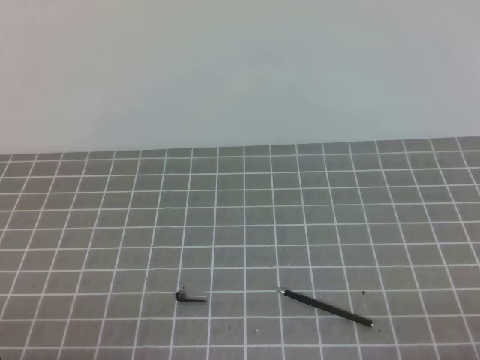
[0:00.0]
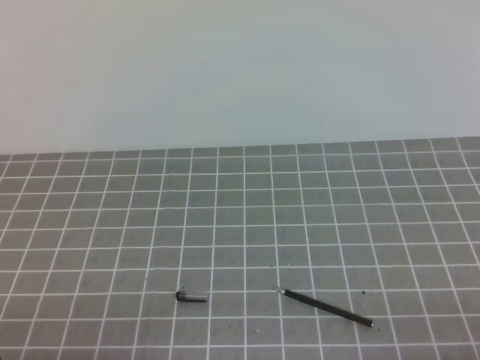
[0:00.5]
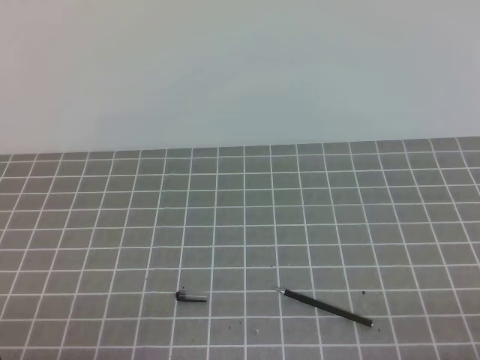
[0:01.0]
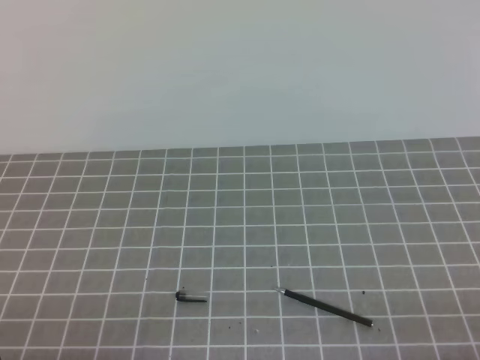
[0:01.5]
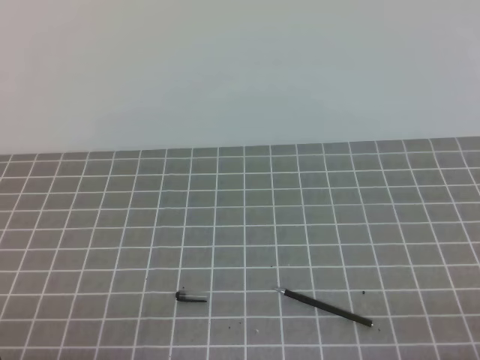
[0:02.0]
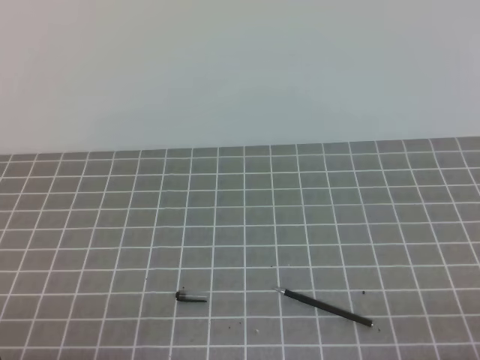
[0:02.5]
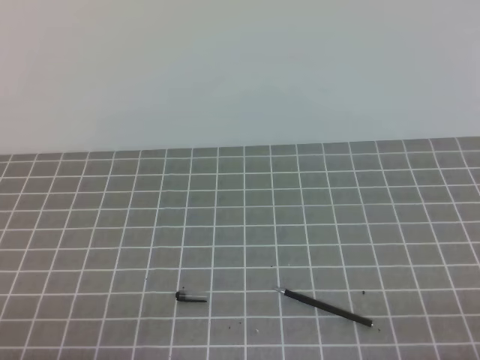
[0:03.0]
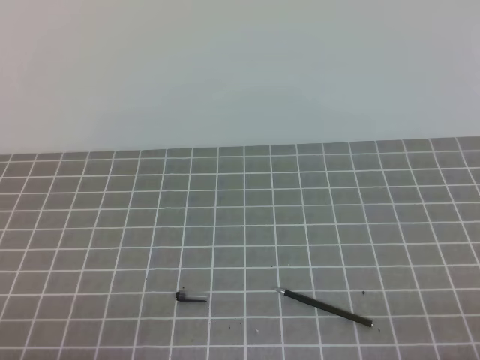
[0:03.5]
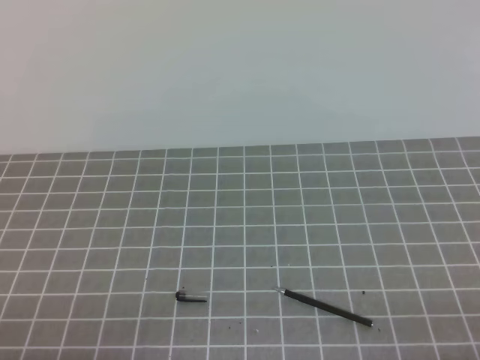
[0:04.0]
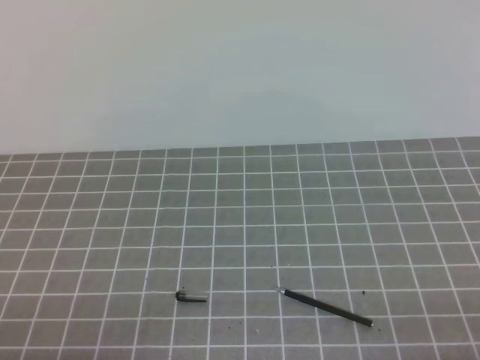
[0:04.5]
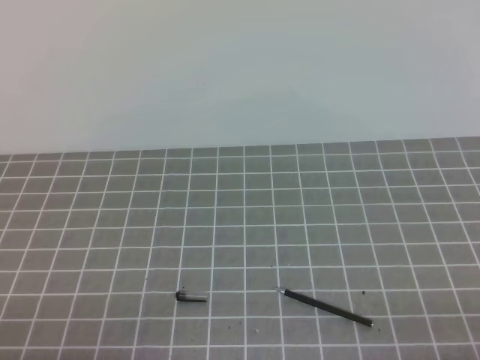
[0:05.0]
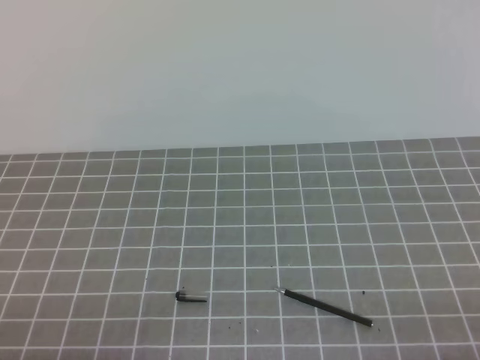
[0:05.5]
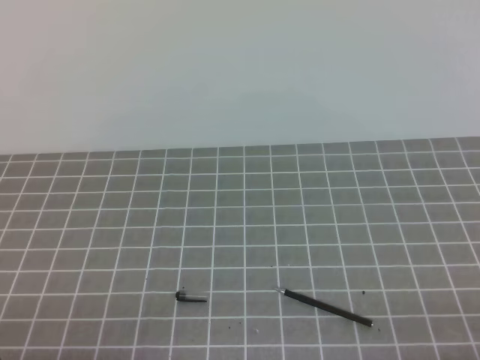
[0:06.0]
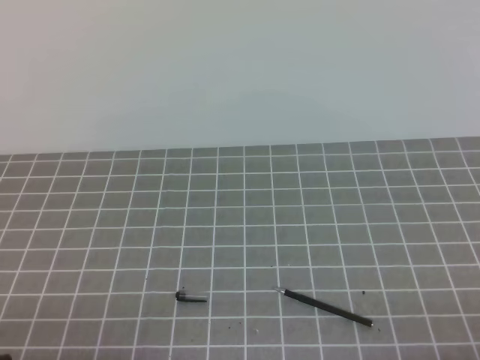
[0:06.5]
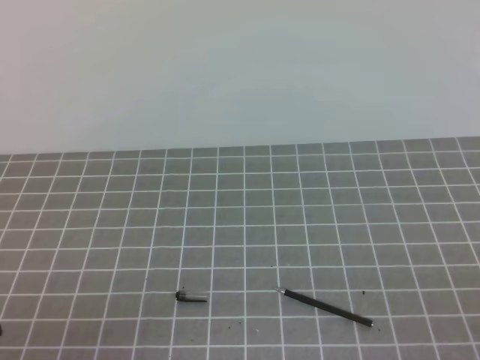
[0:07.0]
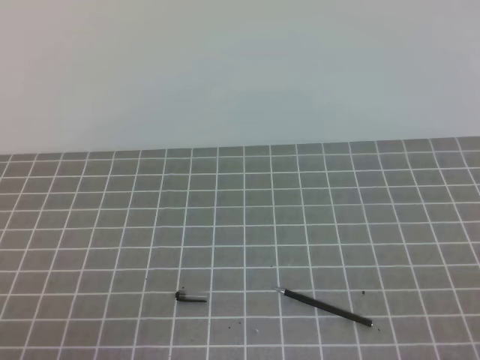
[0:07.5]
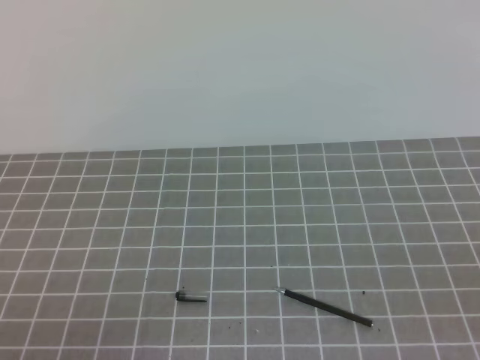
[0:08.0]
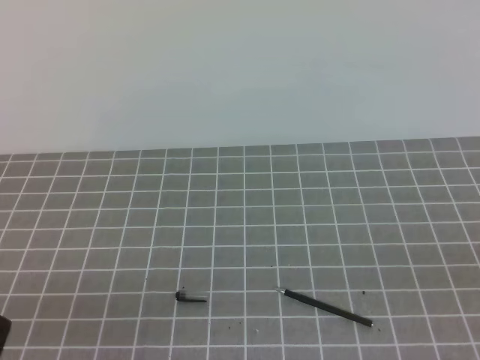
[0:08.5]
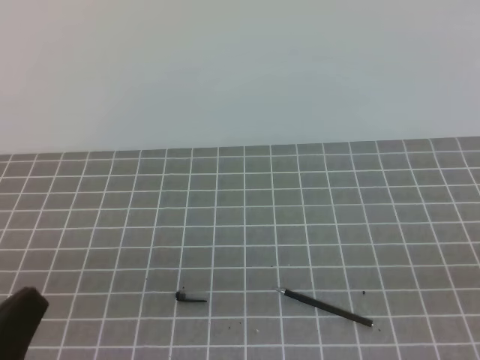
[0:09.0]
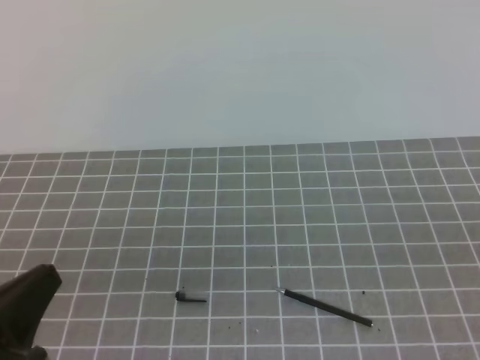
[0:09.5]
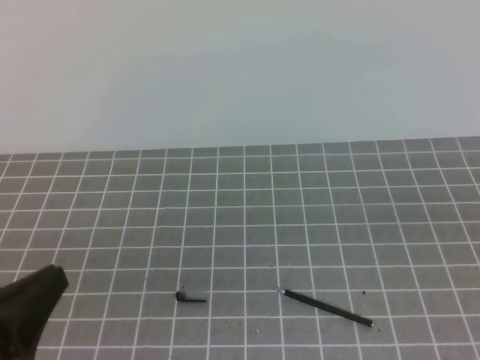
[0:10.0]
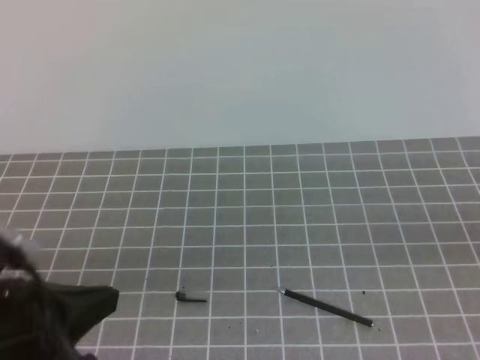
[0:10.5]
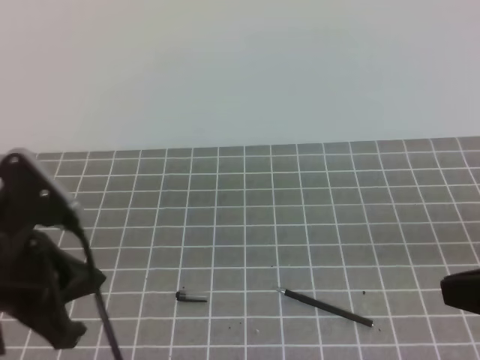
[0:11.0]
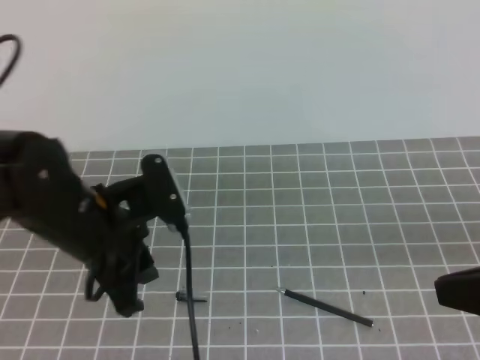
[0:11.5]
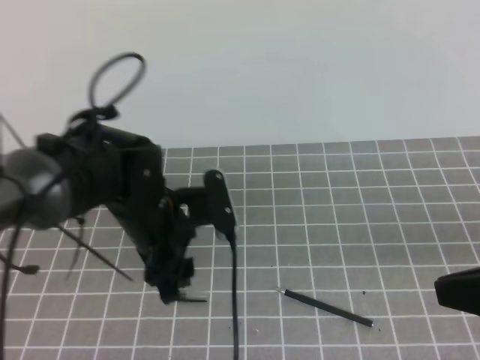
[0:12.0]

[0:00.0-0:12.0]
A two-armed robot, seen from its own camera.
Task of the whole recording: on the grey tablecloth, hold the pen cap in one hand and the pen in the other, then cover the pen cap.
0.0 to 6.0 s: Both grippers stay about where they are.
8.0 to 10.0 s: The left gripper moves upward, some 5 cm.
10.0 to 12.0 s: The left gripper is displaced forward and to the right by some 25 cm, and opens. Meanwhile the right gripper shifts by some 10 cm.

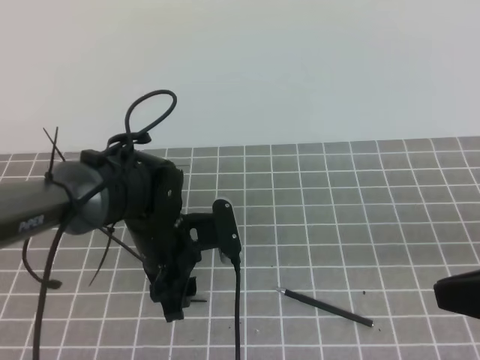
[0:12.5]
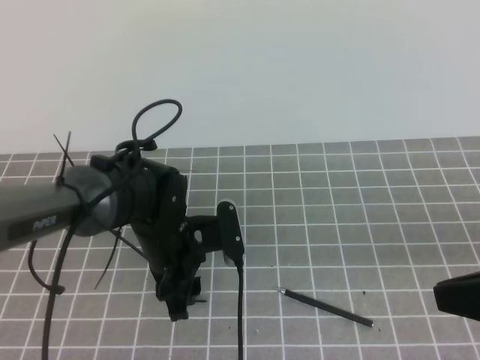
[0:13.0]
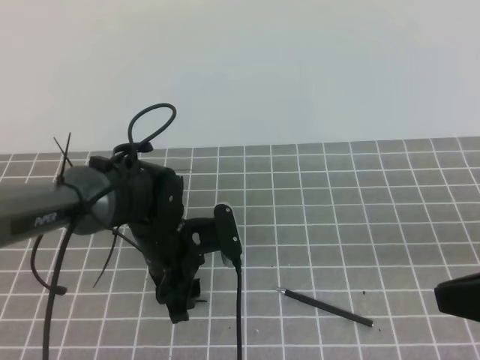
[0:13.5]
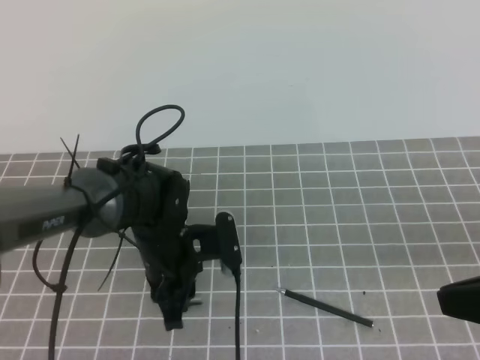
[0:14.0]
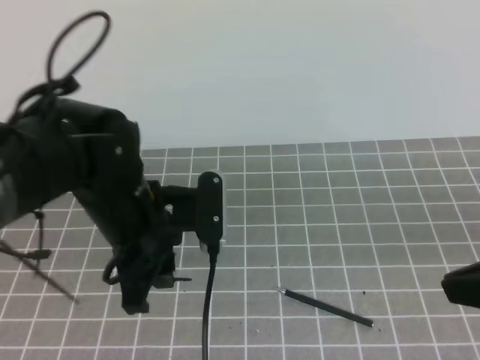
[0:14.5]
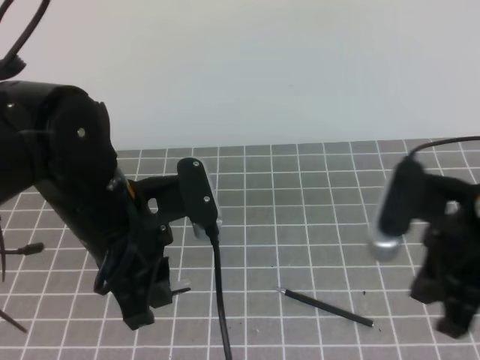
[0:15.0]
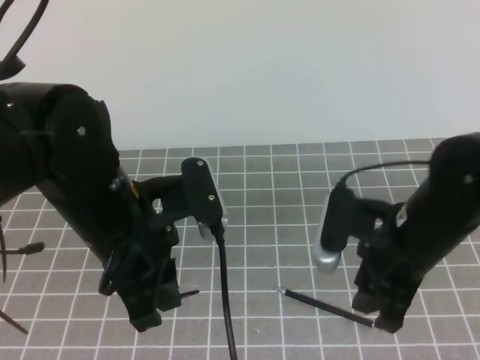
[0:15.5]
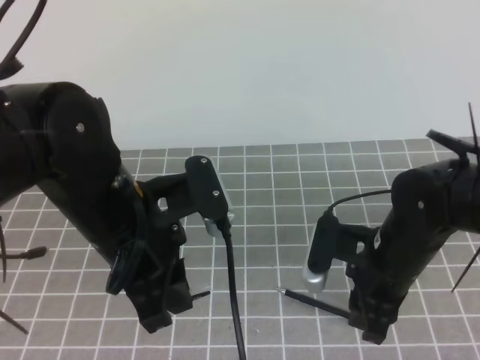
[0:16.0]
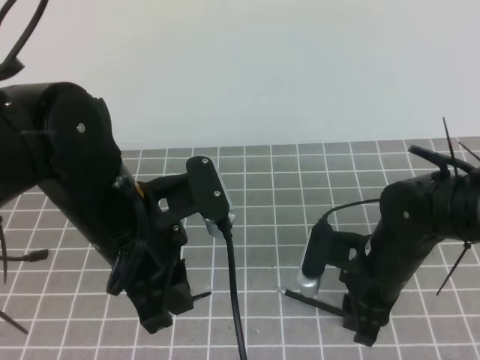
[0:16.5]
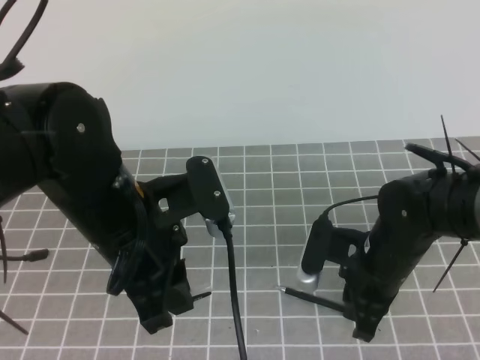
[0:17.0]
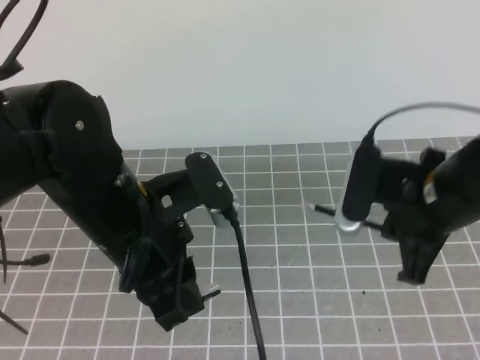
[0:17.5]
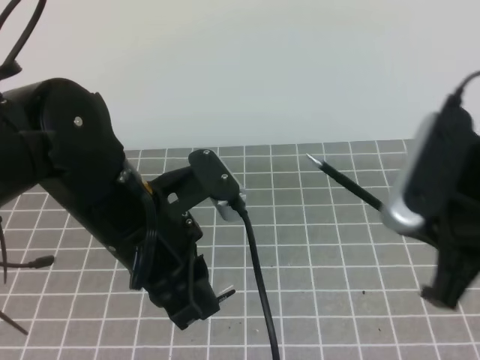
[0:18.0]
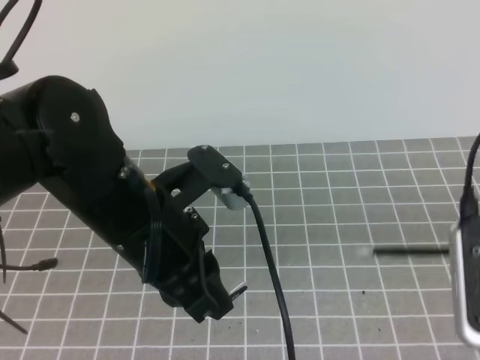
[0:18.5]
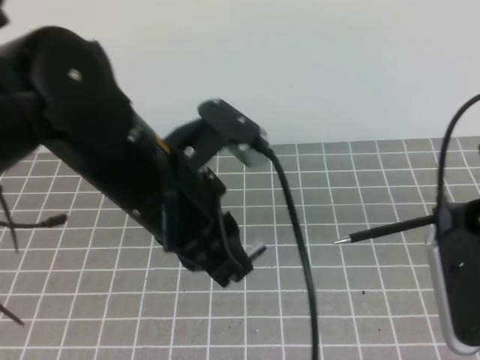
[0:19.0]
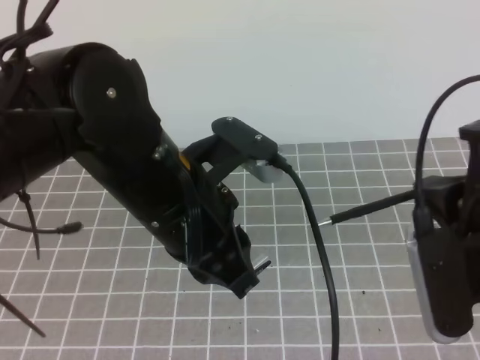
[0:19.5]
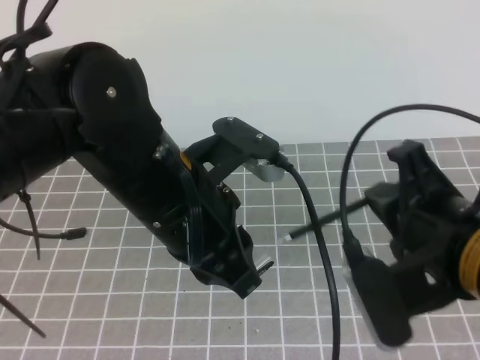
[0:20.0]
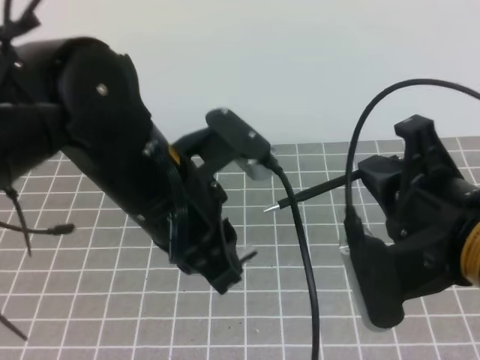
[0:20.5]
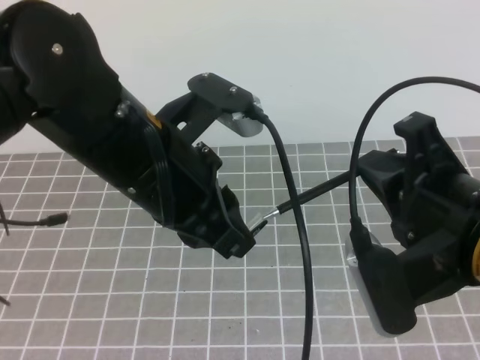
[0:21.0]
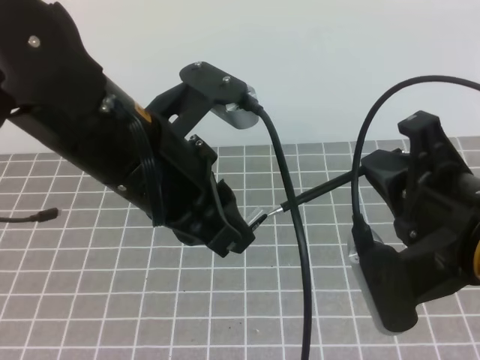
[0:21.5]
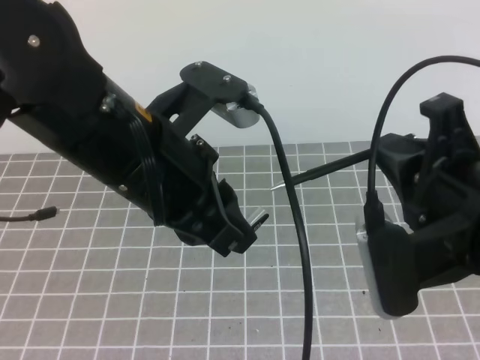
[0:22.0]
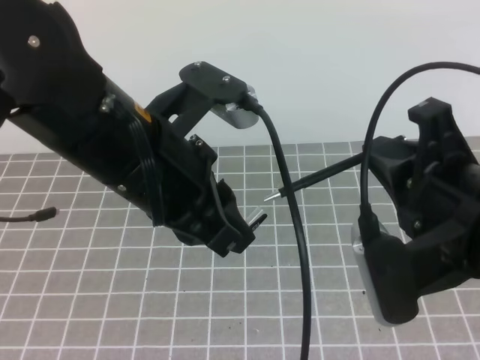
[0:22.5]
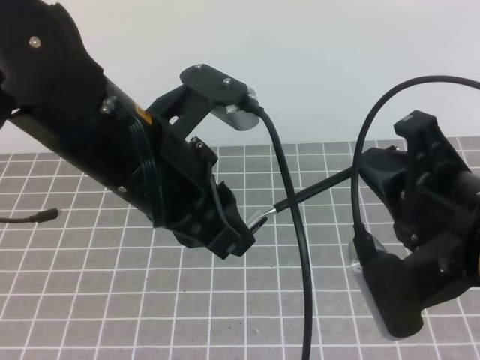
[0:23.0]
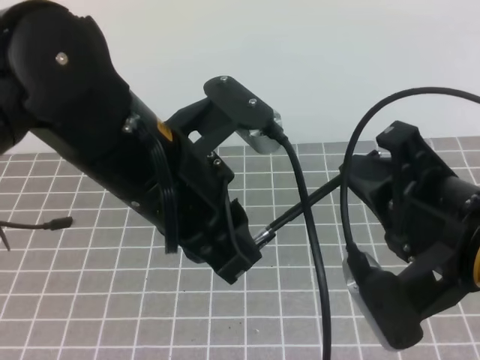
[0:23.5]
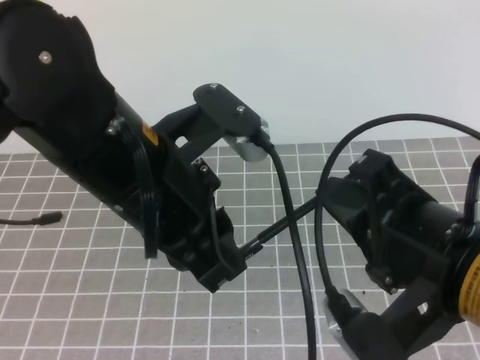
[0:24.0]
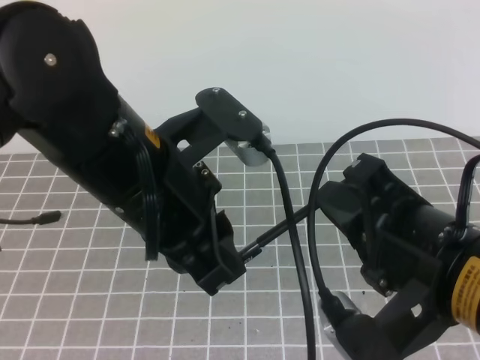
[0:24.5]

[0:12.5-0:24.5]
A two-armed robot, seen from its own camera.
Task of the whole recording: on the grey tablecloth, hold the pen cap in one hand and the pen in the other, then cover the pen cap.
12.5 to 14.5 s: The left gripper goes about 10 cm upward, and closes.
14.5 to 16.5 s: The right gripper moves downward, forward and to the left, approximately 25 cm, and opens up; the left gripper changes place by about 5 cm.
16.5 to 18.5 s: The right gripper heads upward, backward and to the right, covering roughly 25 cm, and closes.
18.5 to 20.5 s: The right gripper heads to the left, covering roughly 10 cm.

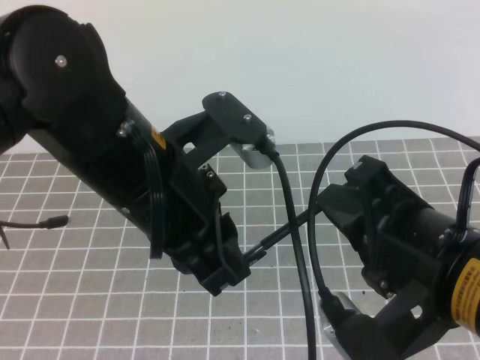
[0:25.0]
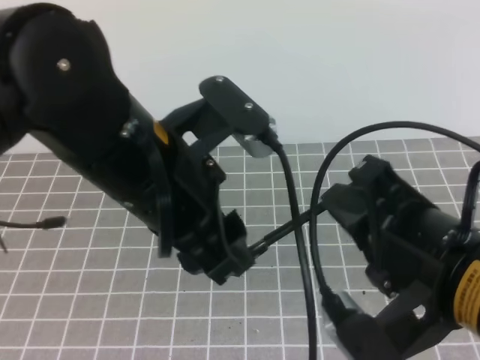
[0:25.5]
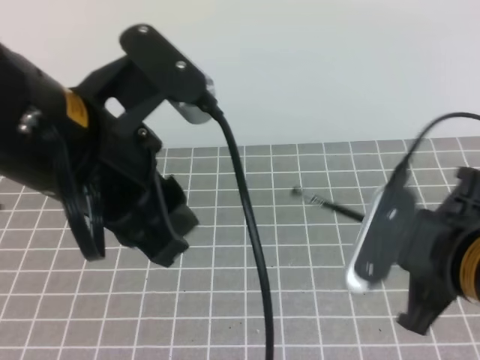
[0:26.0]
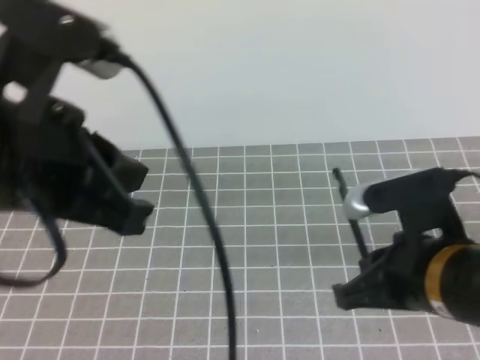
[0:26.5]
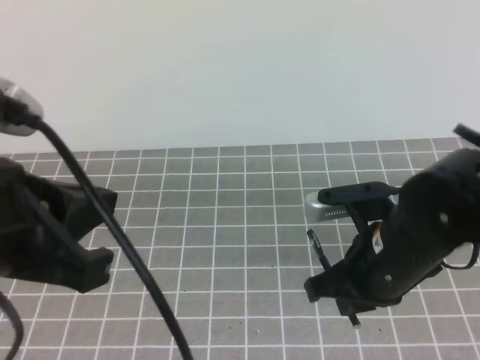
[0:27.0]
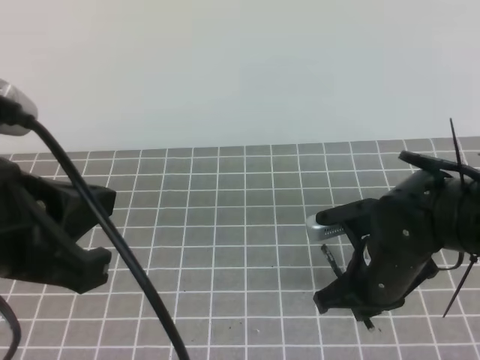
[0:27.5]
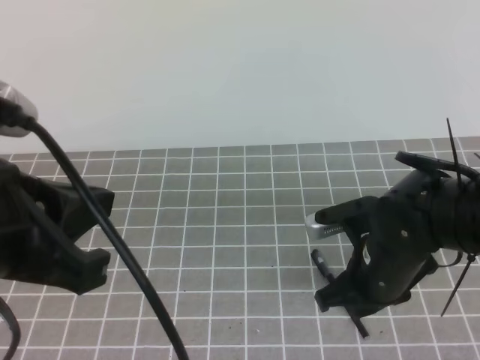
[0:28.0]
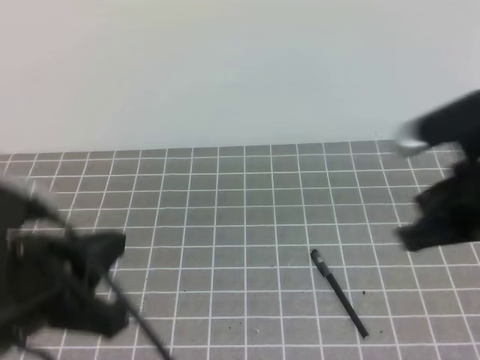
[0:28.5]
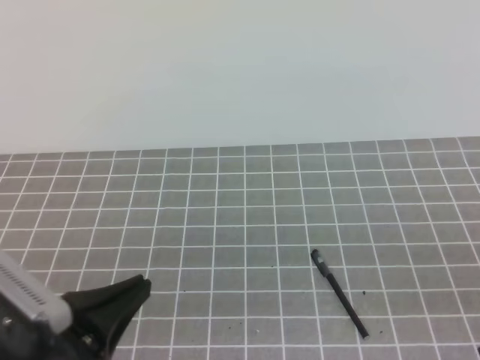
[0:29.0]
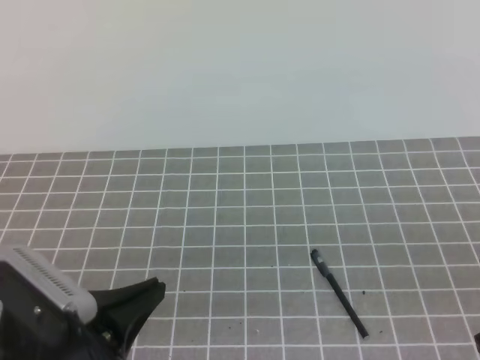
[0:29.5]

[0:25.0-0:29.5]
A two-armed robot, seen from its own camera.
Task of the whole recording: on the grey tablecloth, hold the pen cap in one hand and the pen in the other, then cover the pen cap.
25.0 to 27.0 s: The right gripper heads forward and downward, covering approximately 15 cm. The left gripper goes roughly 10 cm to the left and backward, and opens, then closes once more.
27.0 to 29.5 s: The left gripper travels downward by about 15 cm; the right gripper travels to the right and backward by some 15 cm, and opens and closes again.
